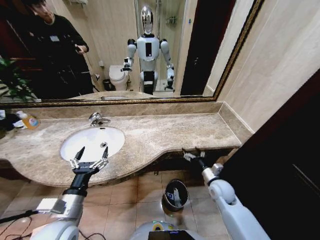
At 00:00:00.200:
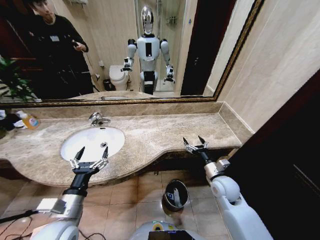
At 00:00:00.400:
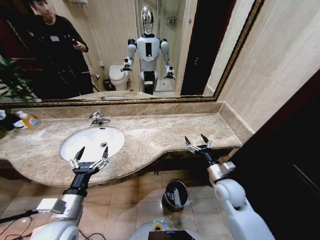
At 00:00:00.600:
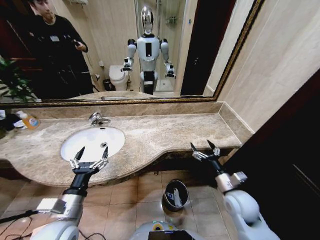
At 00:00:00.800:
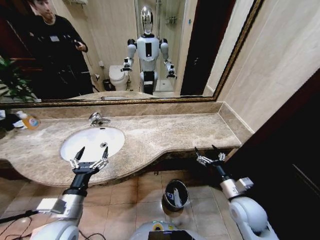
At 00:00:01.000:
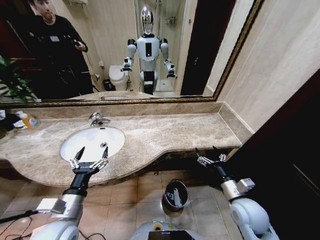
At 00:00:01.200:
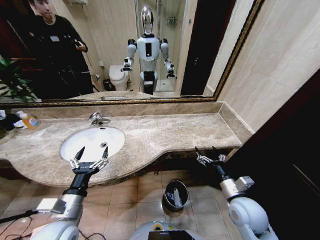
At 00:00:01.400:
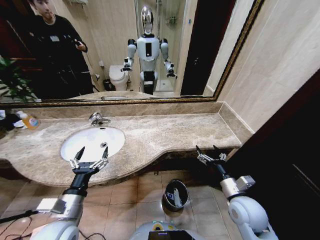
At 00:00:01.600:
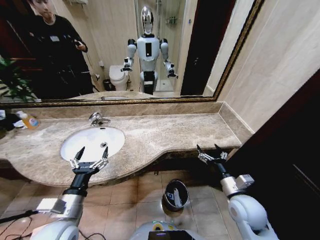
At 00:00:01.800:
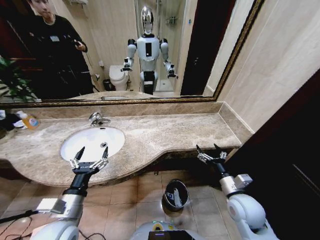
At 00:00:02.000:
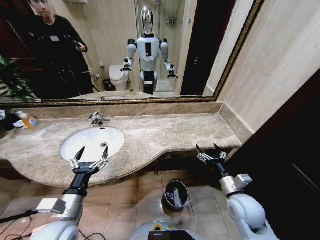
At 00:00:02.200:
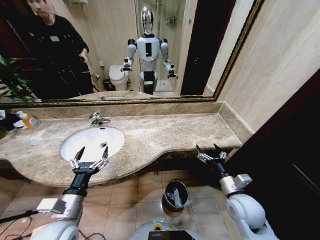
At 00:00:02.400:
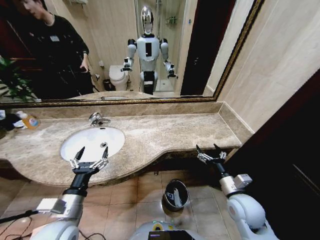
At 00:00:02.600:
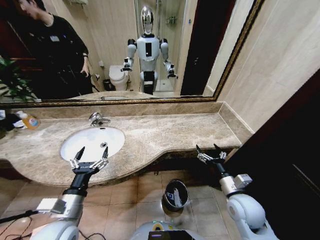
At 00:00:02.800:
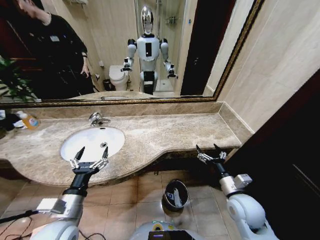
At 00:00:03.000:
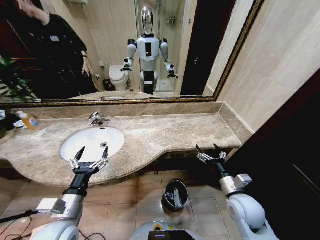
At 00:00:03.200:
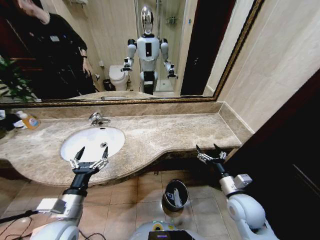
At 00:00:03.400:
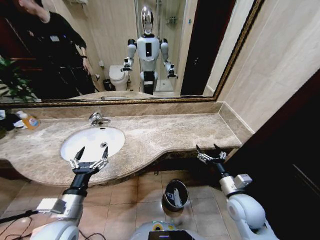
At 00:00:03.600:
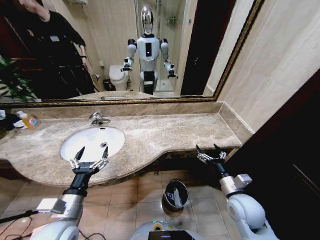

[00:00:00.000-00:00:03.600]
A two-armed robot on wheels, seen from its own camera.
Task of the whole recording: Pick up the trash from the sink and place it in the trash bin.
00:00:00.000 to 00:00:01.800: The right gripper heads backward and upward, covering some 10 cm.
00:00:01.800 to 00:00:03.600: The two grippers keep their place.
